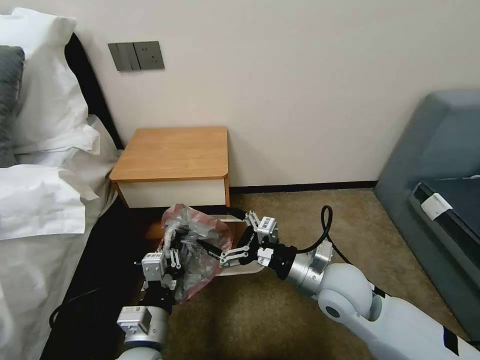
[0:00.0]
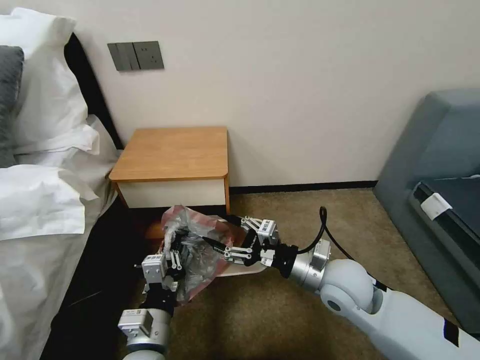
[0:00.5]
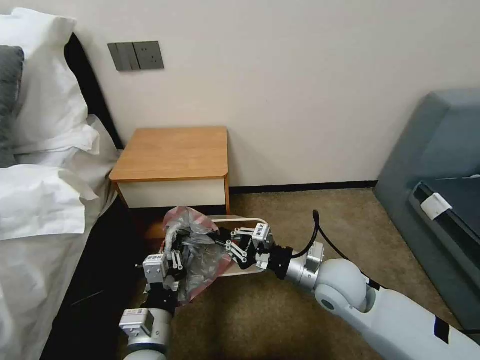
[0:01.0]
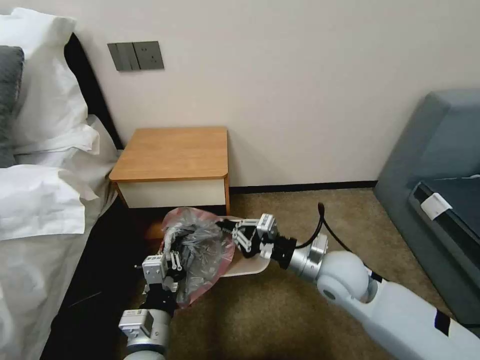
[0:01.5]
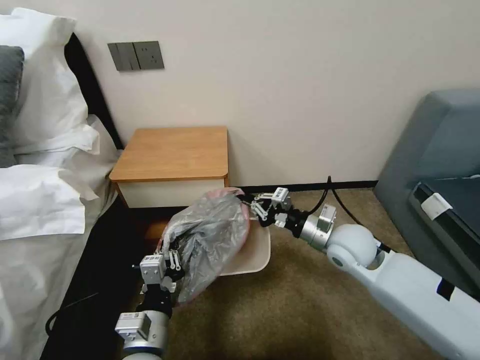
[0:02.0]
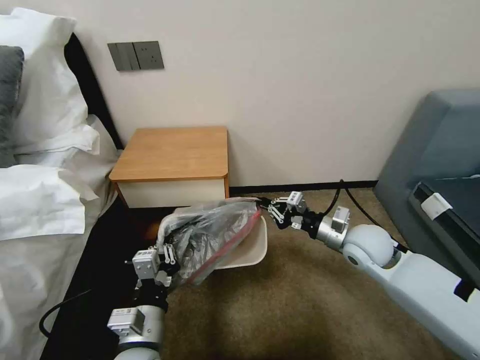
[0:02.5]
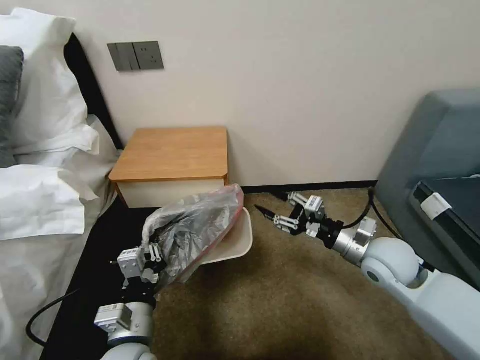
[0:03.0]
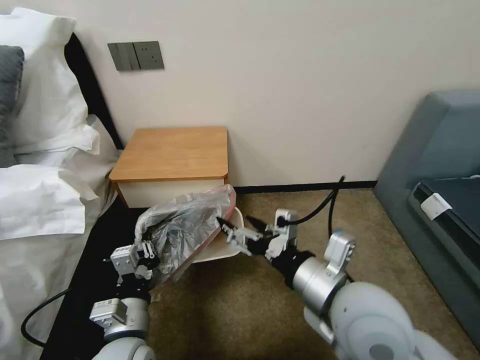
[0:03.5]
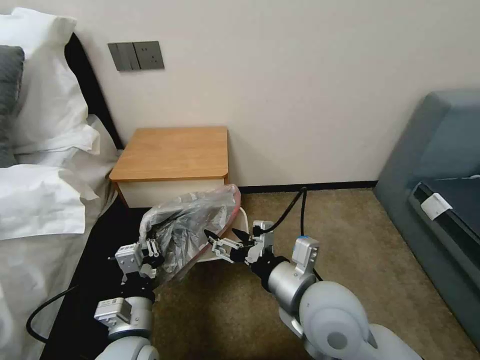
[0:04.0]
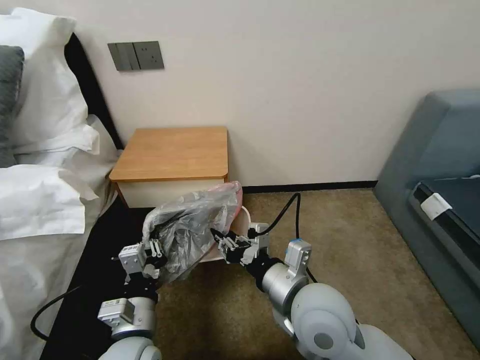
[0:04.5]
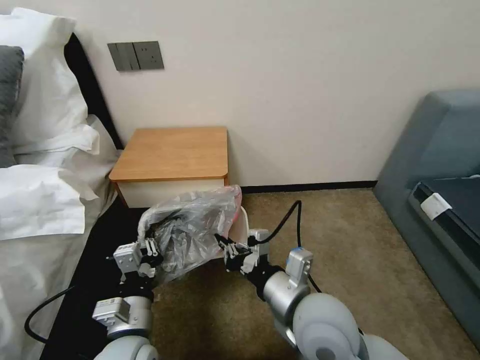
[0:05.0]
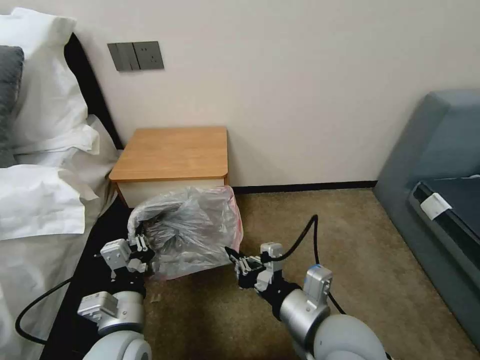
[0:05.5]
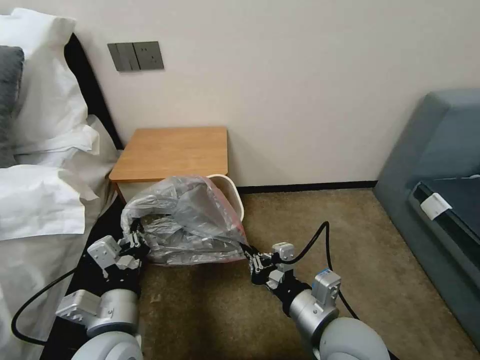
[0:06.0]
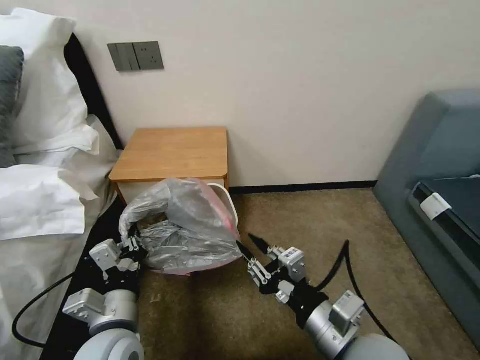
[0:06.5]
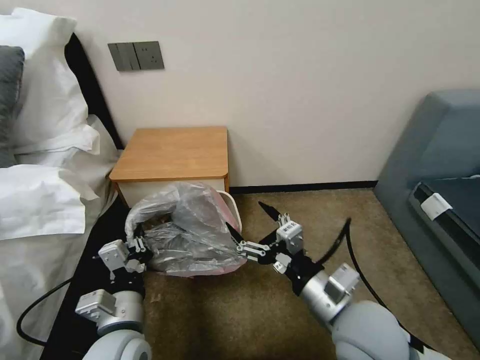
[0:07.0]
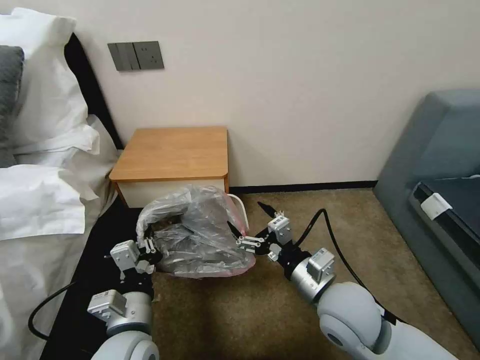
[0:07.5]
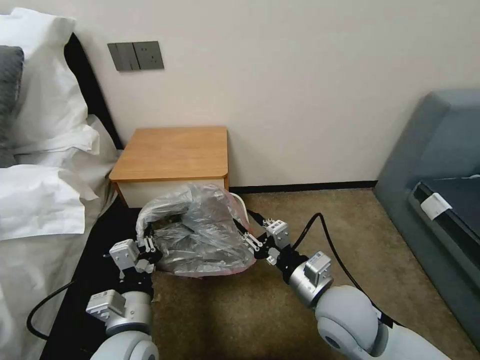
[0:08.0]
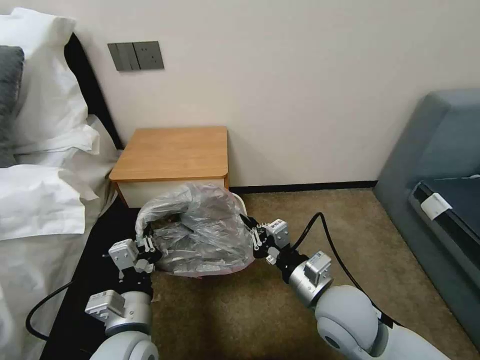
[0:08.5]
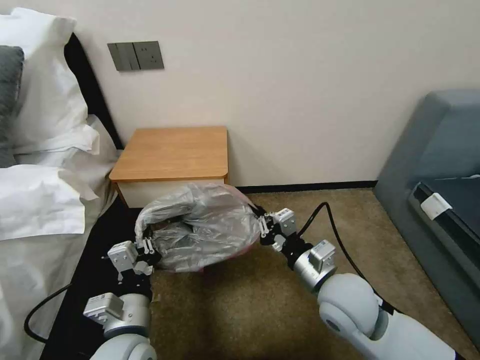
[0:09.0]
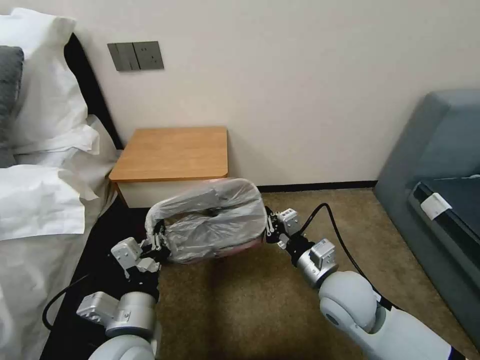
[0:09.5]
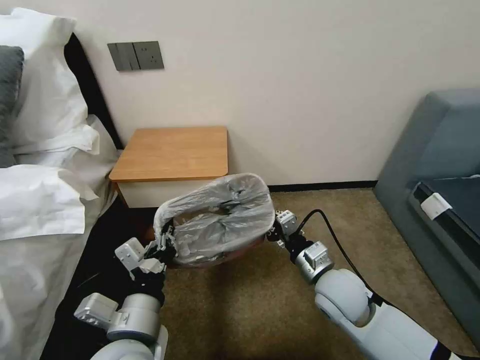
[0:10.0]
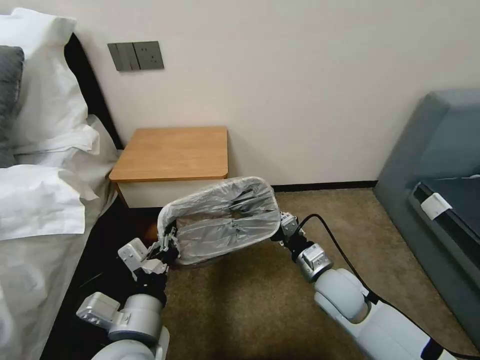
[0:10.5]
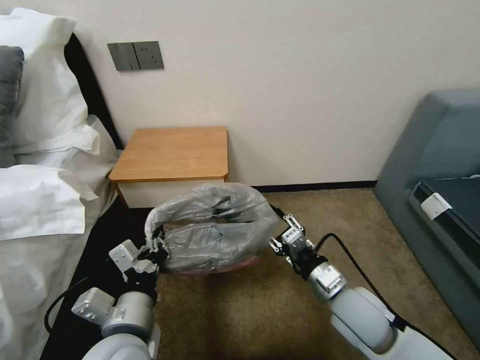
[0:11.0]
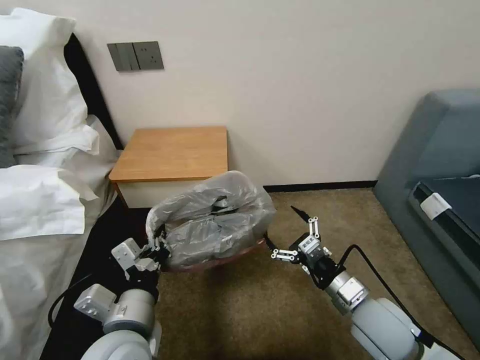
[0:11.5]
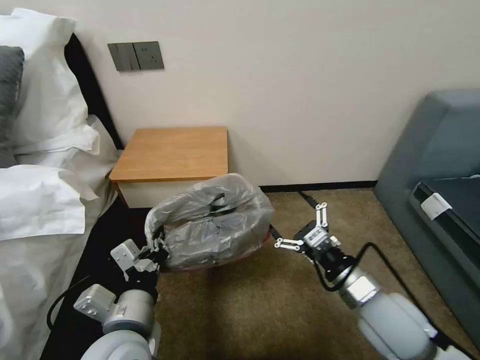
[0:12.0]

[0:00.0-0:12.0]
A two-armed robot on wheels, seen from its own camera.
Task of the whole recording: Pick up the garbage bag from the table and place it over the trash can.
0:00.0 to 0:02.0: The right gripper shifts roughly 10 cm forward and to the right, and closes.
0:02.0 to 0:04.0: The right gripper moves backward and to the left, approximately 20 cm, and opens its fingers.
0:04.0 to 0:06.0: The left gripper heads upward, covering some 5 cm. The right gripper changes place by approximately 5 cm, and closes its fingers.
0:06.0 to 0:08.0: The right gripper is displaced forward by roughly 5 cm, and opens up.
0:08.0 to 0:10.0: The right gripper is displaced forward by some 5 cm, and closes its fingers; the left gripper shifts by about 5 cm.
0:10.0 to 0:12.0: The right gripper goes some 10 cm backward and to the right, and opens its fingers.

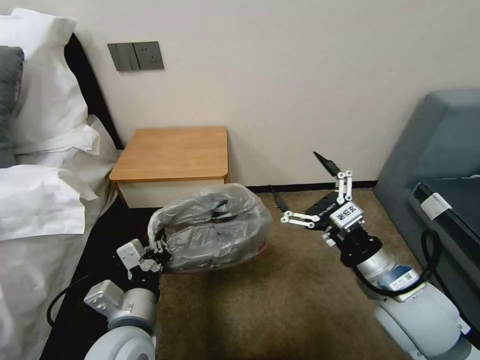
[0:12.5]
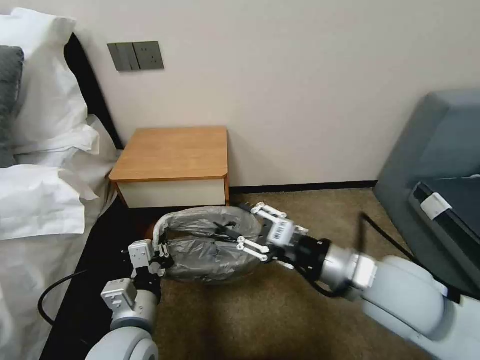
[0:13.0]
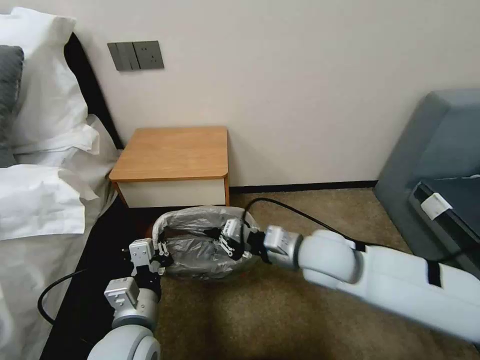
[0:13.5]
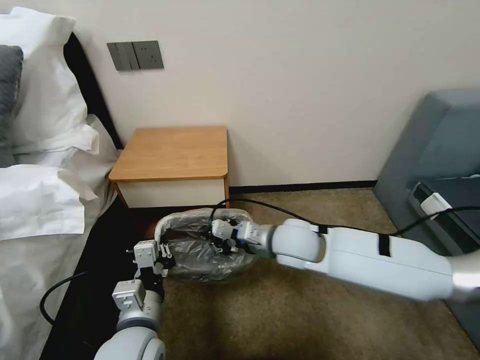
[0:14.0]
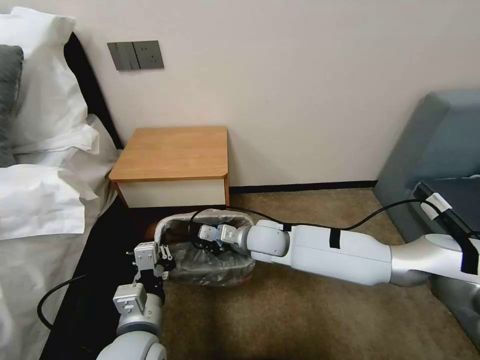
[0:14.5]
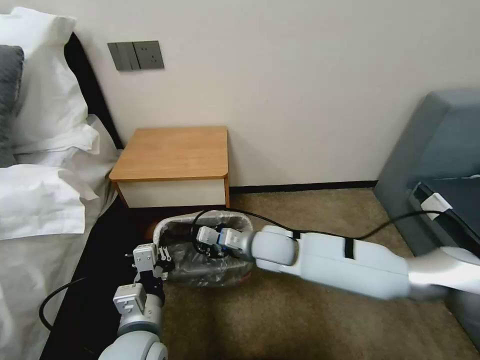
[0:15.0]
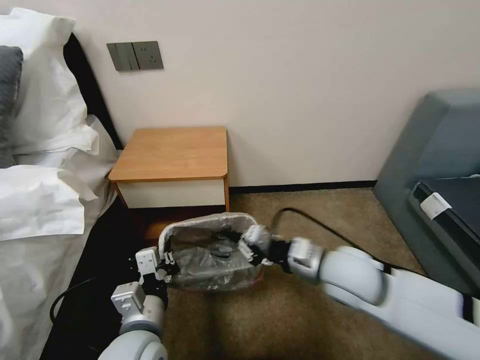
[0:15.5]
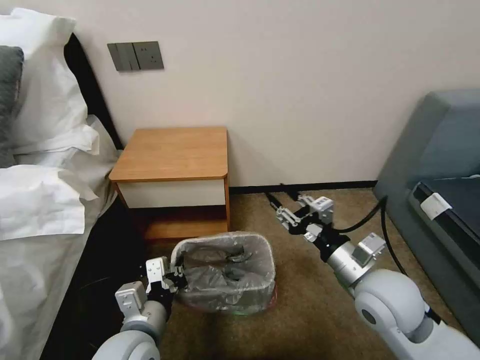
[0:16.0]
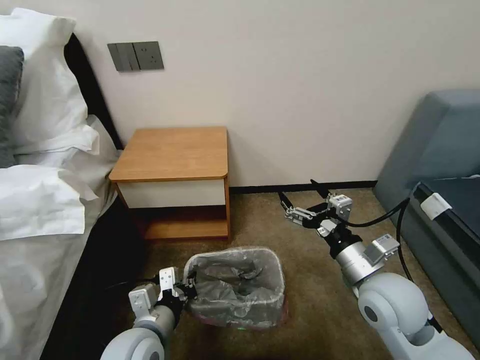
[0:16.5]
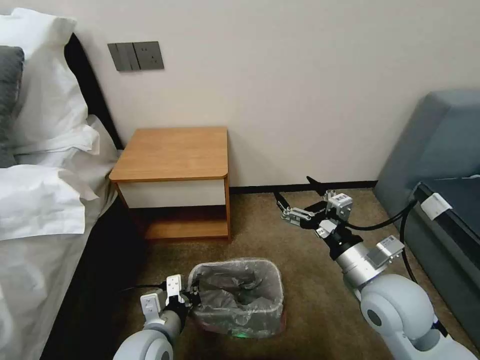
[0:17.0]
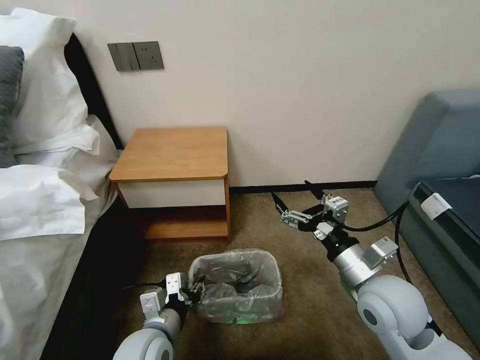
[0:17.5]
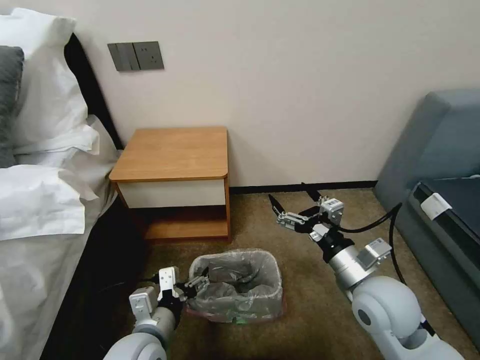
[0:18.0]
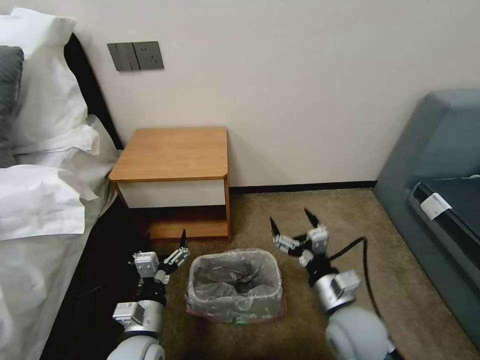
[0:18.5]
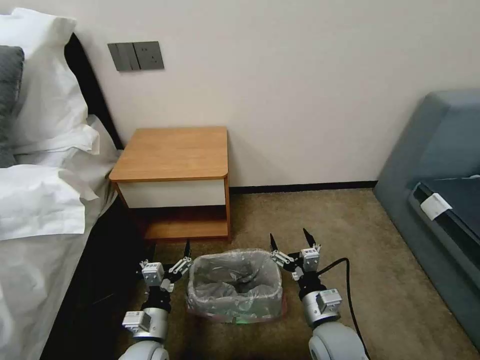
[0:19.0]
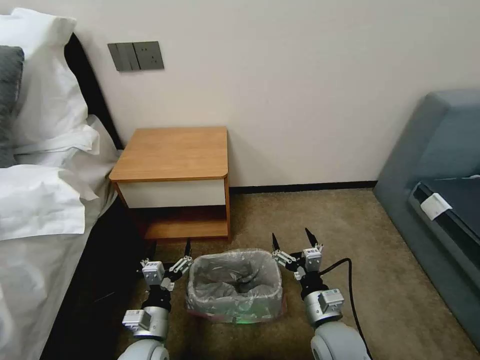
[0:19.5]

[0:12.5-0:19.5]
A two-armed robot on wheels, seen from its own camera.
Task of the whole recording: Pick up the garbage bag from the table and place it over the trash can.
0:12.5 to 0:14.5: The right gripper moves to the left, forward and downward, about 30 cm, and closes its fingers.
0:14.5 to 0:16.0: The right gripper is displaced to the right and backward by some 25 cm, and opens up.
0:16.0 to 0:17.5: The left gripper shifts about 5 cm downward, and opens; the right gripper opens its fingers.
0:17.5 to 0:19.5: The right gripper is displaced downward by approximately 15 cm. The left gripper goes roughly 10 cm downward, and opens up.

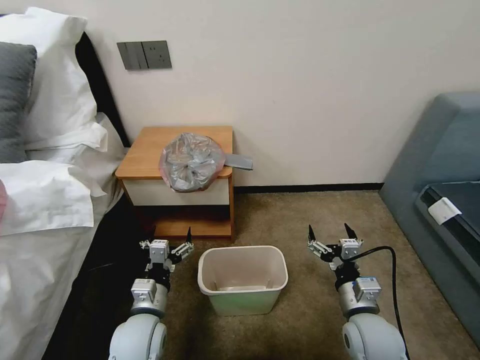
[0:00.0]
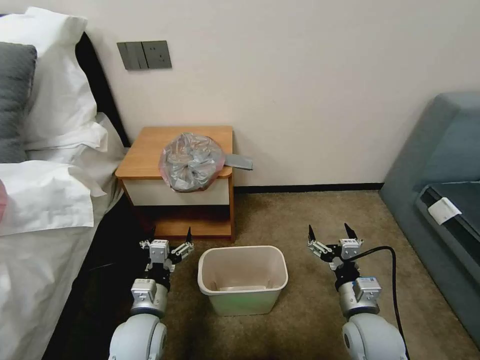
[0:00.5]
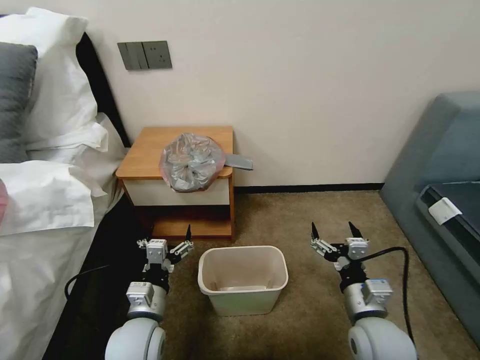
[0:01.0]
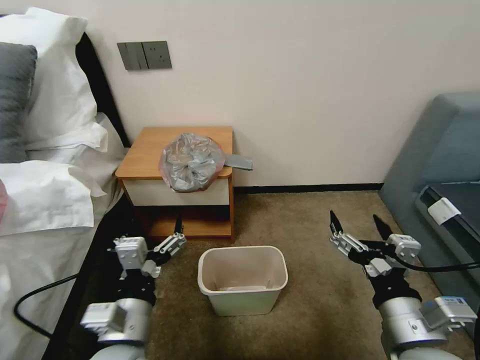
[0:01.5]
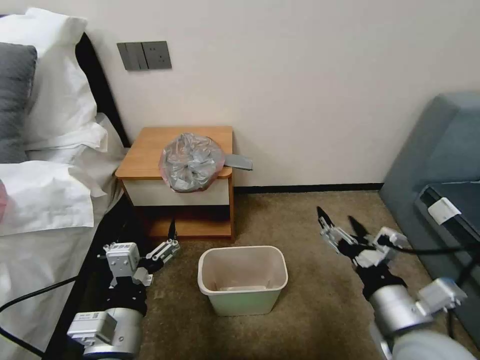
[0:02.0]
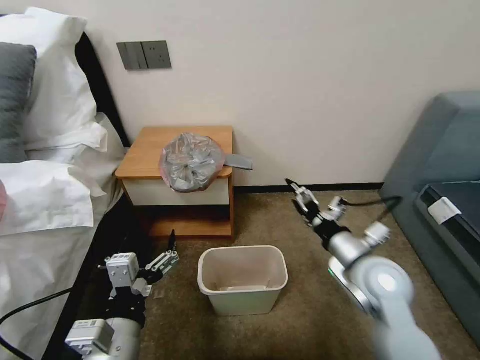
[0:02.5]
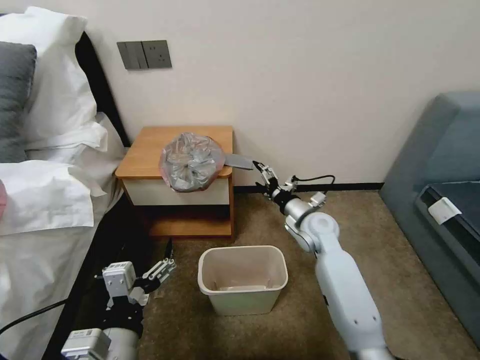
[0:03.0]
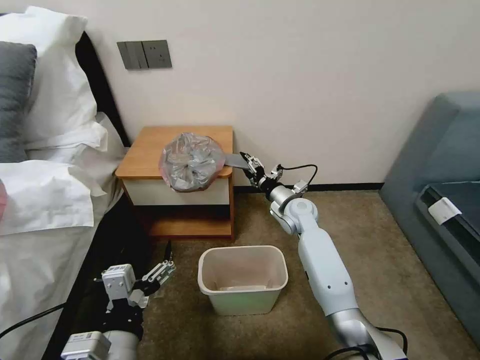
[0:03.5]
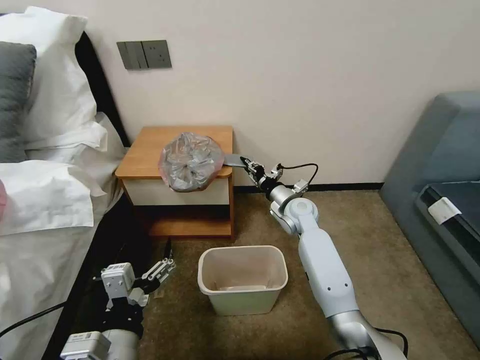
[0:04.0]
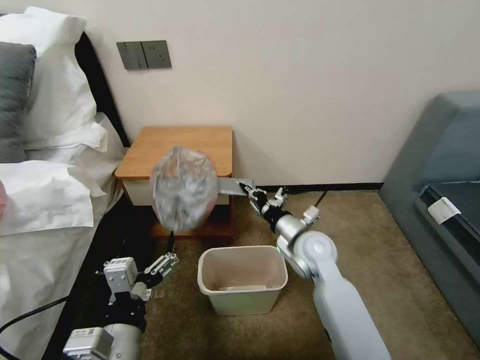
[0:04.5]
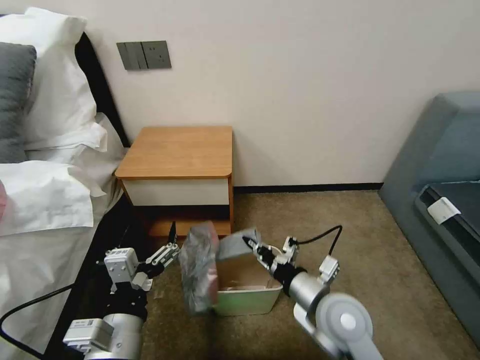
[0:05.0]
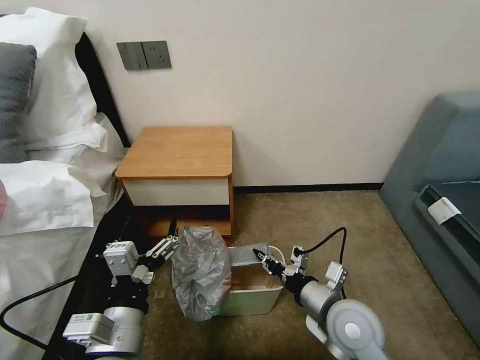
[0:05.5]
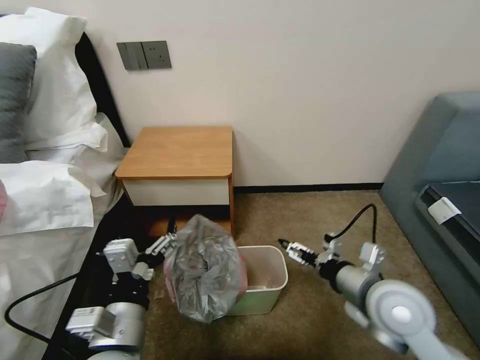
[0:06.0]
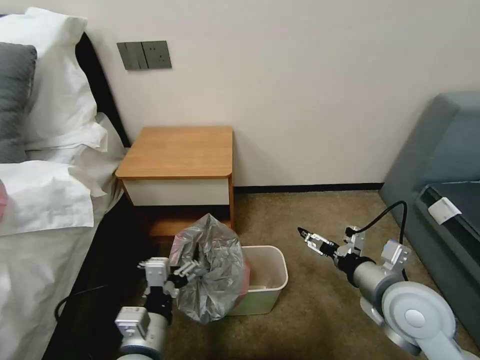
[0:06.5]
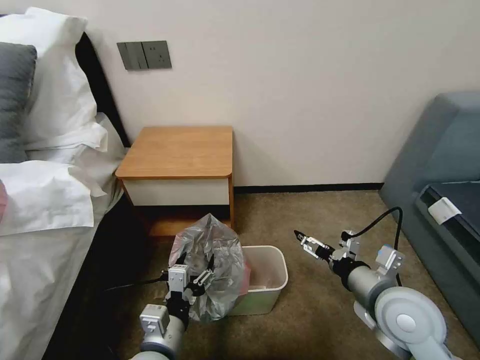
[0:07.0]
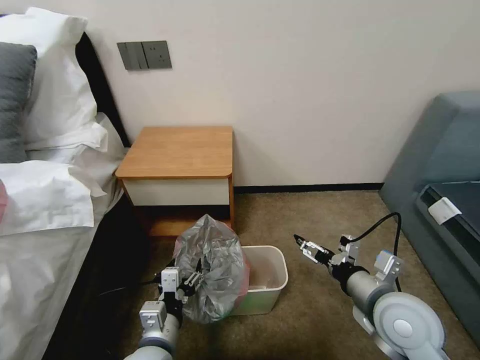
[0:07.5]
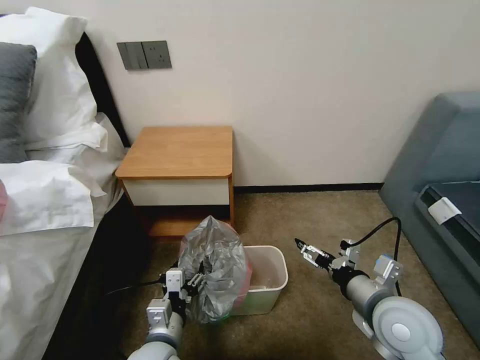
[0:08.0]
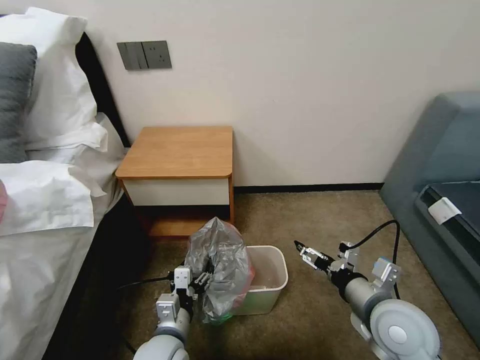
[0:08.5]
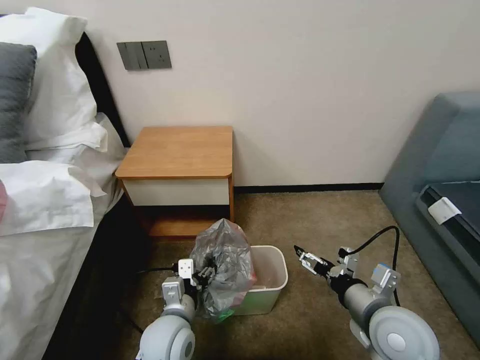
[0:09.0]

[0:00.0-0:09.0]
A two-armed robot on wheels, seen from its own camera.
Task of the whole recording: Pick up the garbage bag from the table and place it over the trash can.
0:02.0 to 0:04.5: The right gripper travels forward and to the left by approximately 25 cm, and closes up.
0:04.5 to 0:07.0: The right gripper is displaced backward and to the right by about 20 cm, and opens. The left gripper goes about 10 cm downward.
0:07.0 to 0:09.0: The left gripper heads forward, covering about 5 cm.
